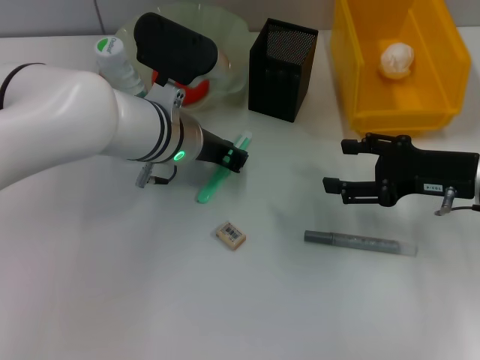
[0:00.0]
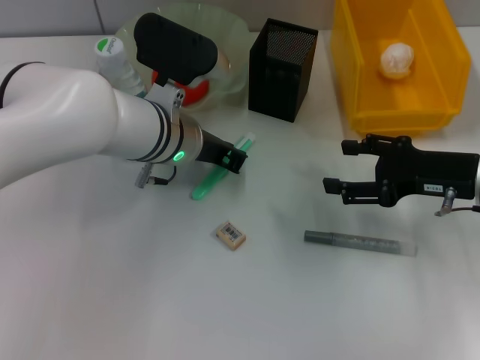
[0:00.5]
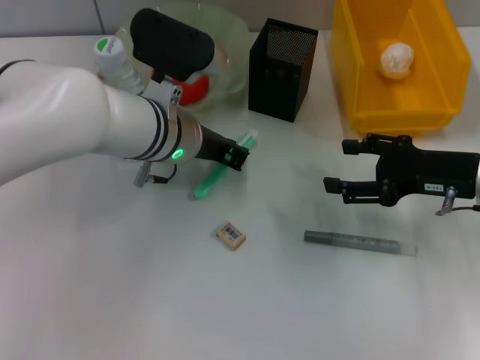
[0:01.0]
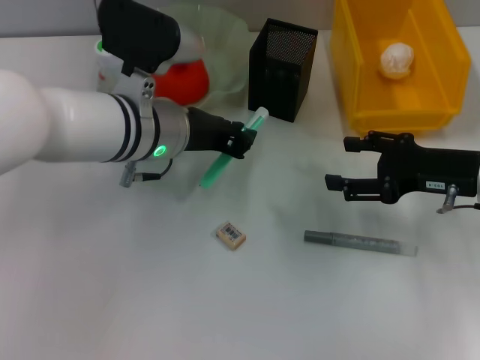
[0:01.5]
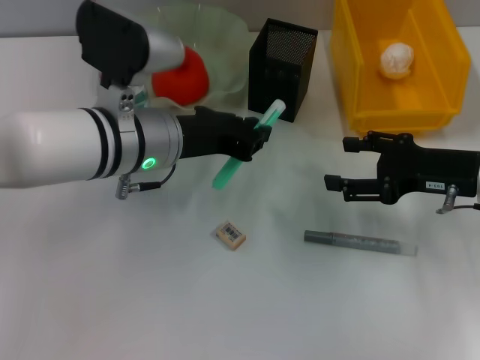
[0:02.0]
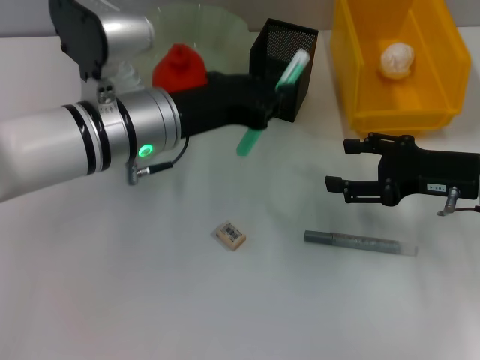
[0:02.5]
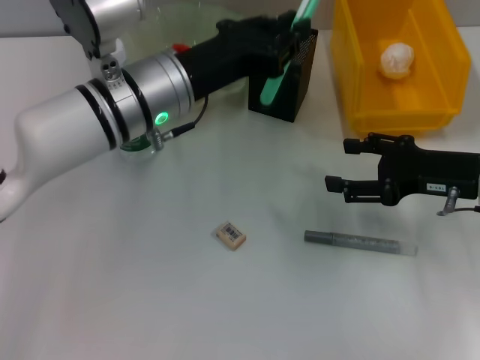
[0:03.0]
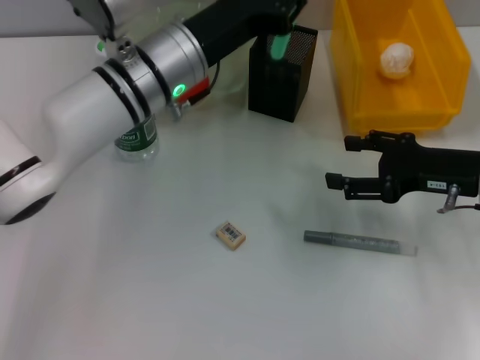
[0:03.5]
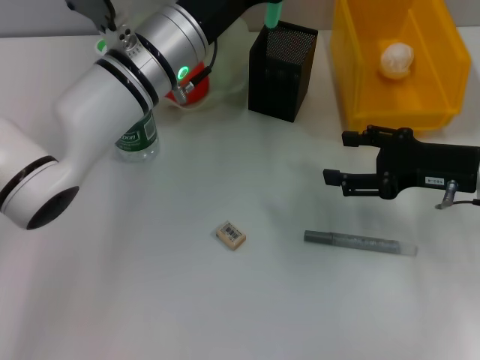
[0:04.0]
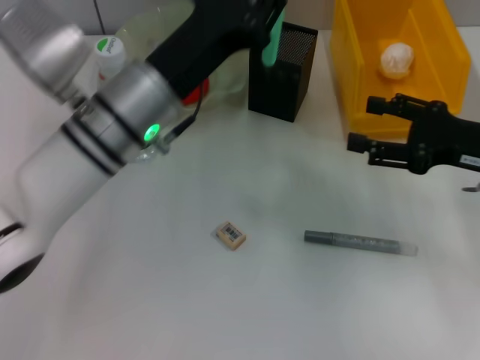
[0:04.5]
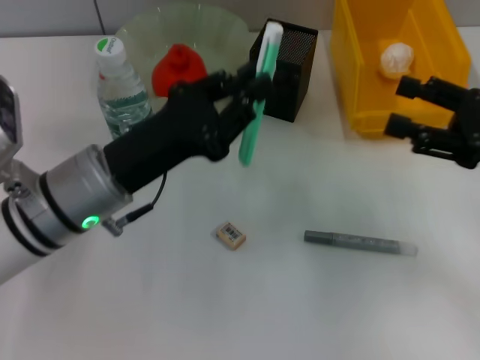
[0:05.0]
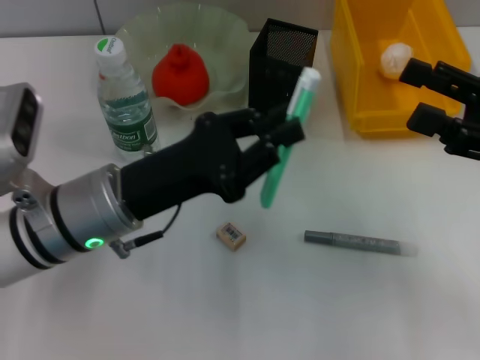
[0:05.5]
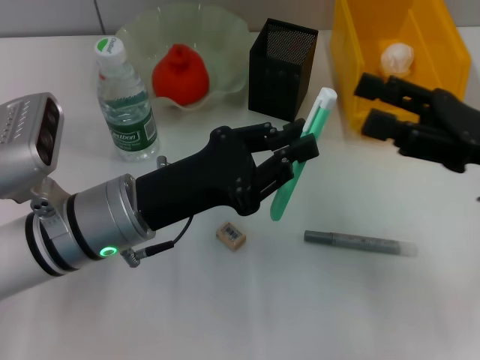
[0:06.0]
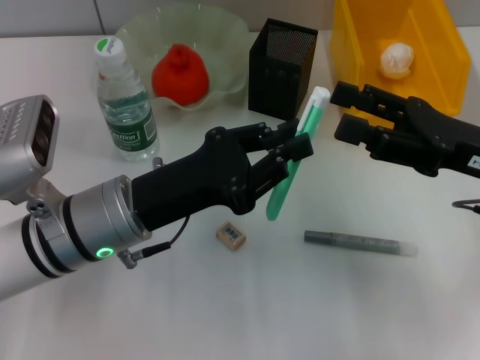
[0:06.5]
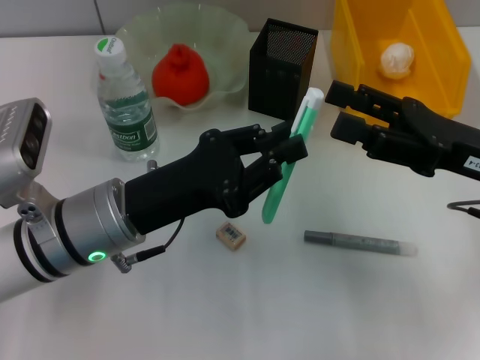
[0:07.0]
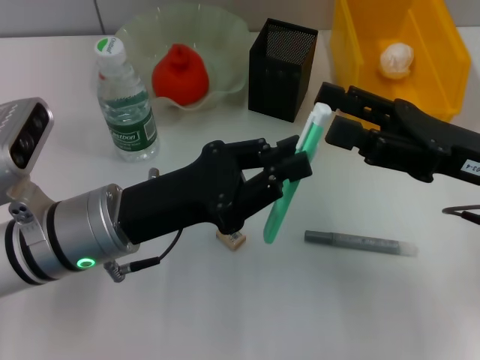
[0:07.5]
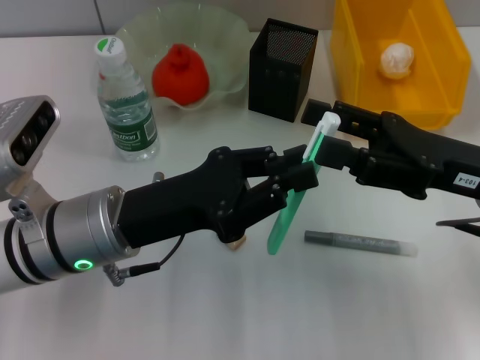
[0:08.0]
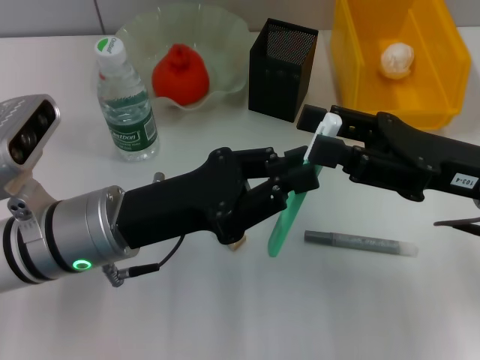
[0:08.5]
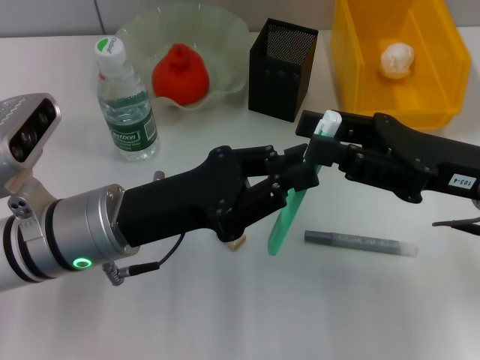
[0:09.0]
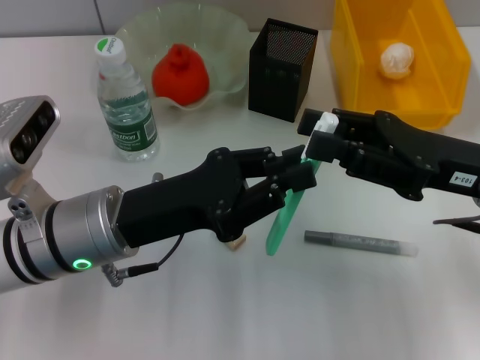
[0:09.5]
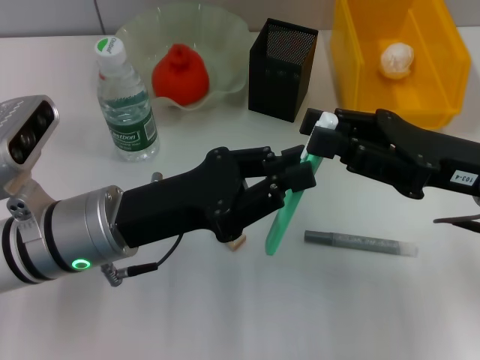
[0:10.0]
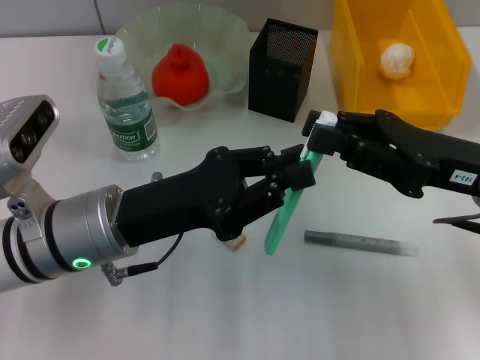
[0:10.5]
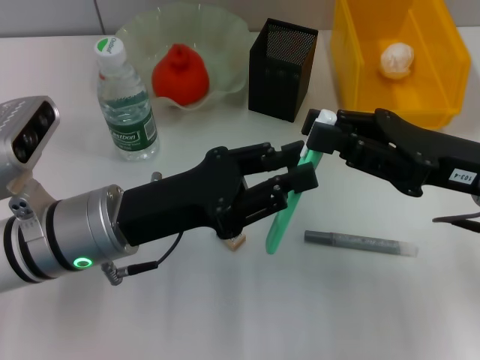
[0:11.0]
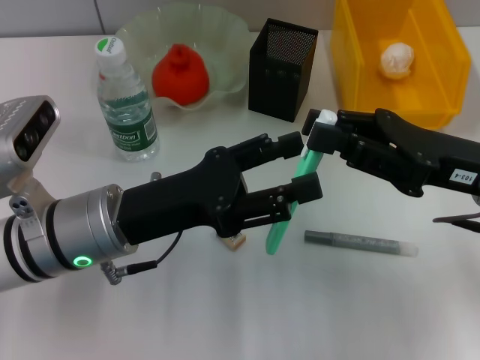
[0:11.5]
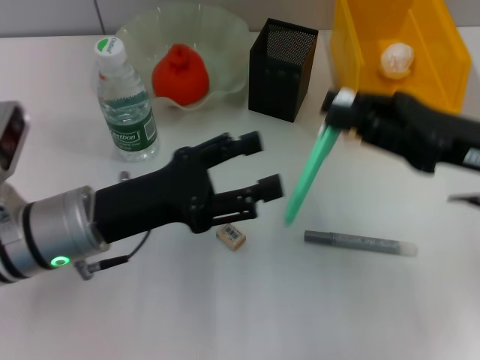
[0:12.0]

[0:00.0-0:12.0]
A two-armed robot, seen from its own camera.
Step, 0:01.0 to 0:11.0: Pass the blue utility knife from the left hand to the right hand.
0:00.0 to 0:02.0: The left gripper ends up roughly 5 cm from where it was.
0:02.0 to 0:04.0: The left gripper heads forward, covering approximately 5 cm.
0:04.0 to 0:06.0: The right gripper shifts by approximately 5 cm; the left gripper goes some 15 cm backward, downward and to the left.
0:08.0 to 0:10.0: The right gripper closes.
0:10.0 to 0:12.0: The left gripper opens.

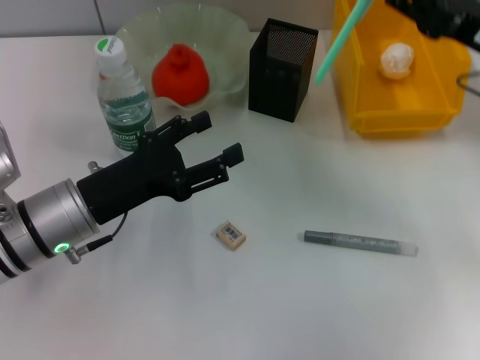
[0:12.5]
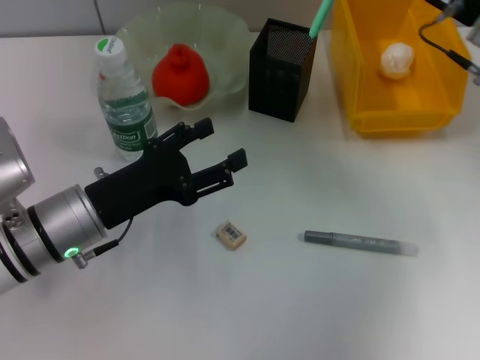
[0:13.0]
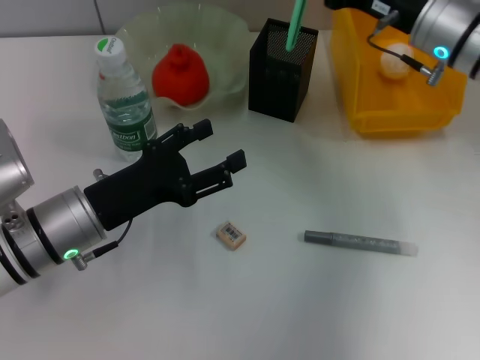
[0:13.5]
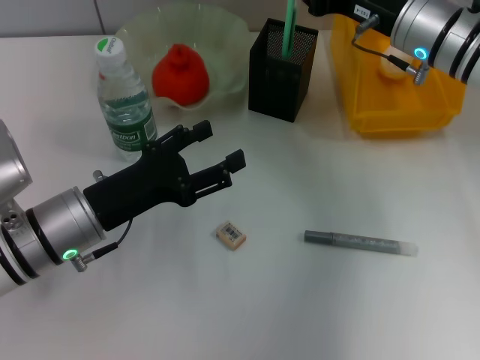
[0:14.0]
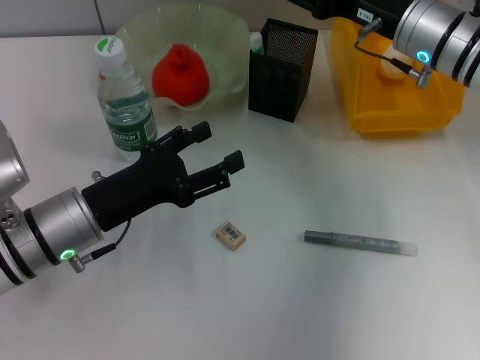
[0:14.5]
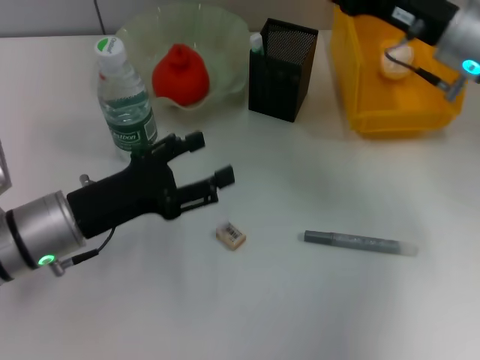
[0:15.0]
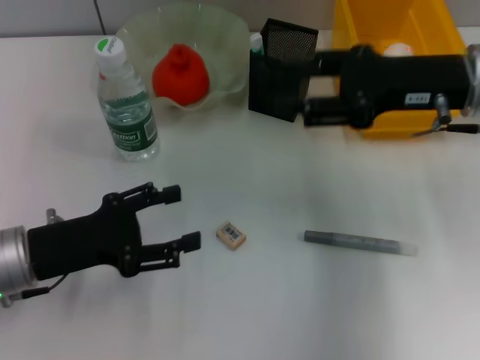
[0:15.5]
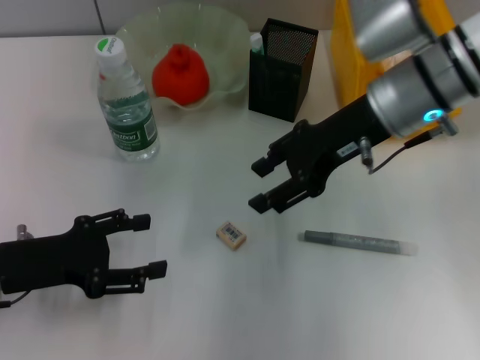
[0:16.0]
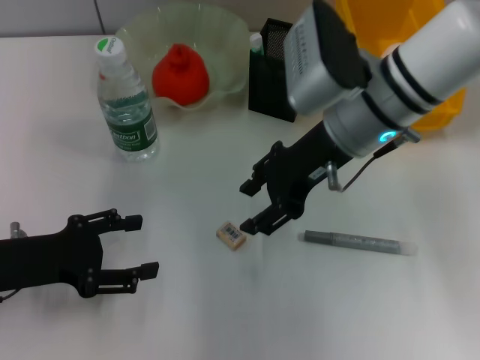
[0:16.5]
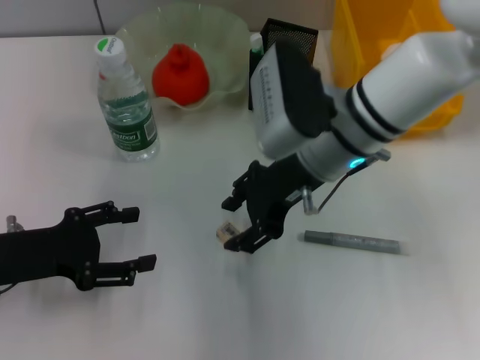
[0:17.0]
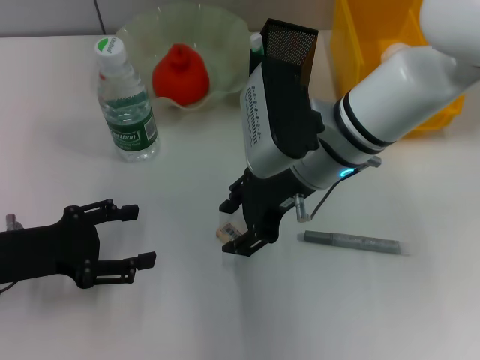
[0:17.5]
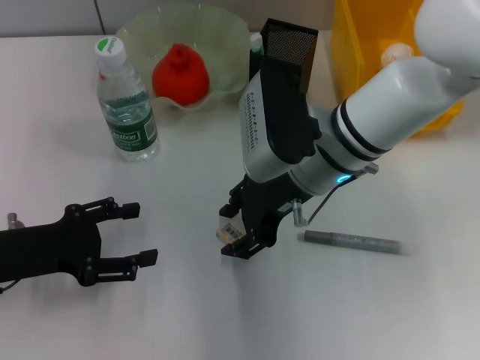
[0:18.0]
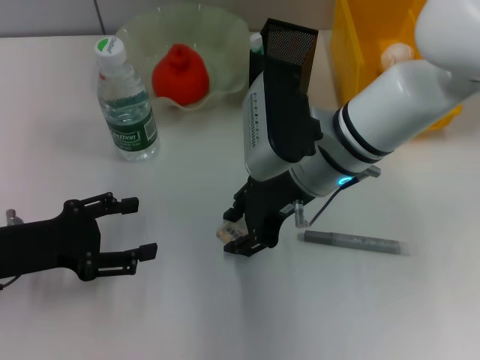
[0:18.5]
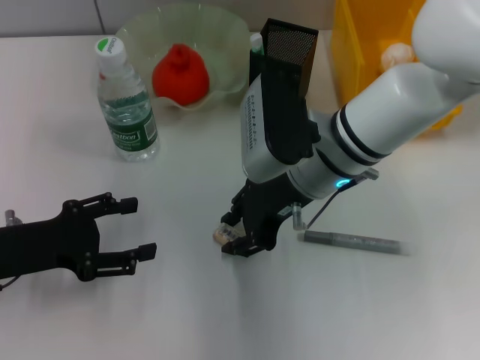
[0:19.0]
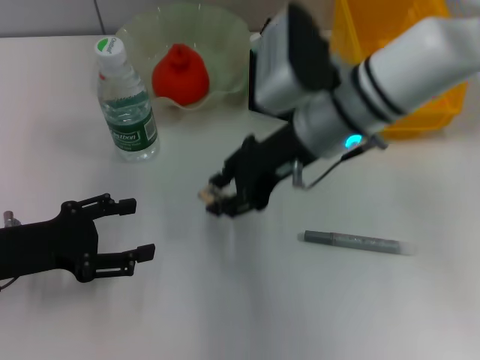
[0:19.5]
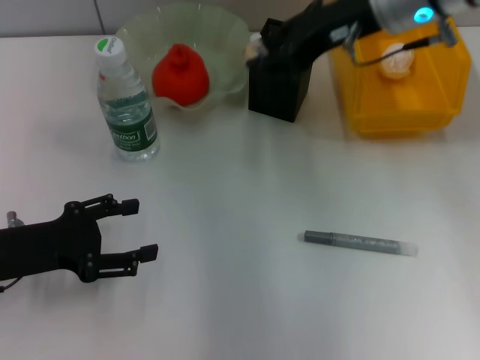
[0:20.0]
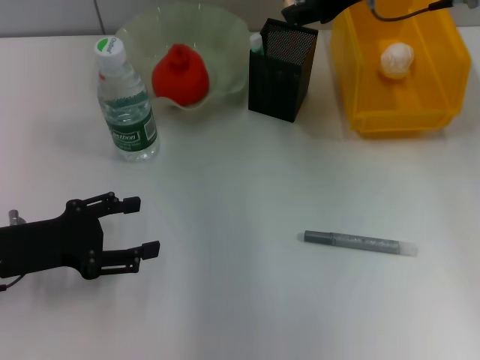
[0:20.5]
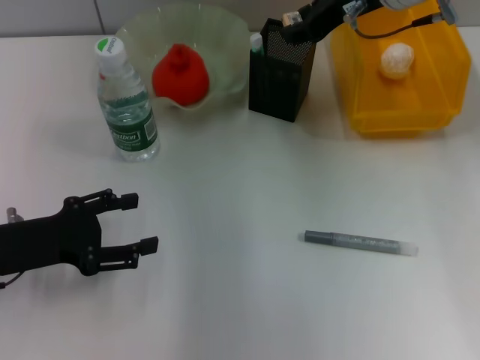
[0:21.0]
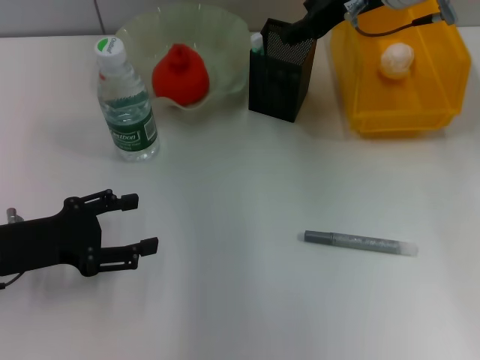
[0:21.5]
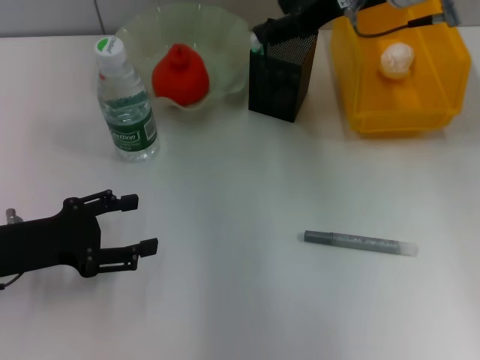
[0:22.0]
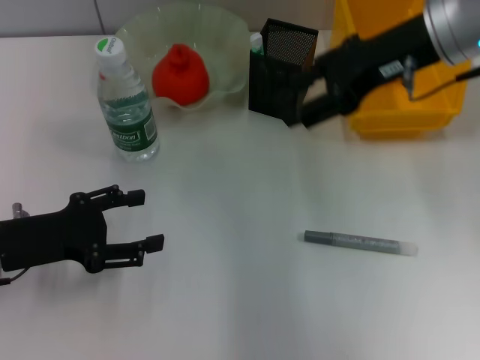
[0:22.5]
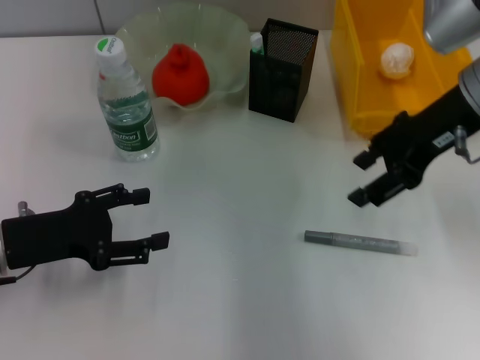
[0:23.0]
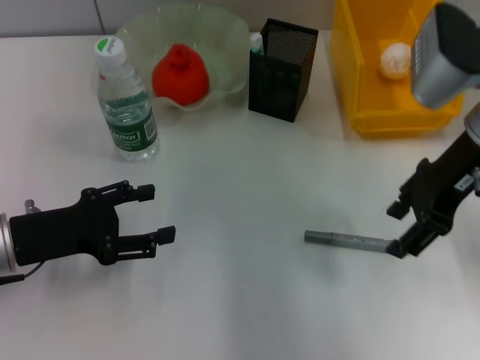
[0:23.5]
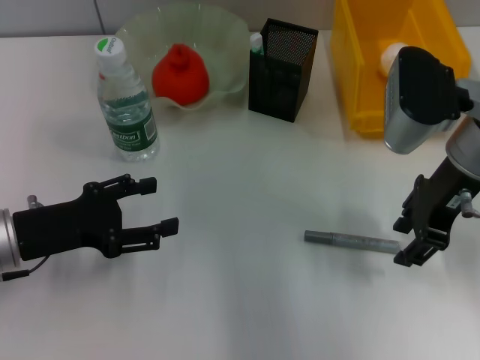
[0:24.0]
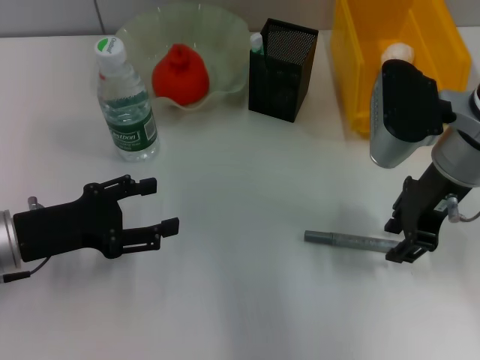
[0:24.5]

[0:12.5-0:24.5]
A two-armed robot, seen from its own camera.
Step, 0:12.5 to 0:14.0: Place the blue utility knife into the pen holder with the right hand.
Step, 0:14.5 to 0:19.0: Grab the eraser with the right hand.
Step, 0:19.5 to 0:21.5: Put the eraser into the pen holder with the right hand.
0:12.5 to 0:14.5: The right gripper moves to the left and forward, some 10 cm, and opens.
0:14.5 to 0:16.5: The right gripper moves to the left and backward, some 10 cm, while the left gripper goes roughly 10 cm to the left.
0:16.5 to 0:18.5: The right gripper shifts by about 5 cm.
0:18.5 to 0:20.5: The right gripper shifts approximately 20 cm upward, forward and to the right.
0:20.5 to 0:22.5: The right gripper shifts about 5 cm backward, and opens up.
0:22.5 to 0:24.5: The right gripper is displaced downward by some 10 cm, and closes.

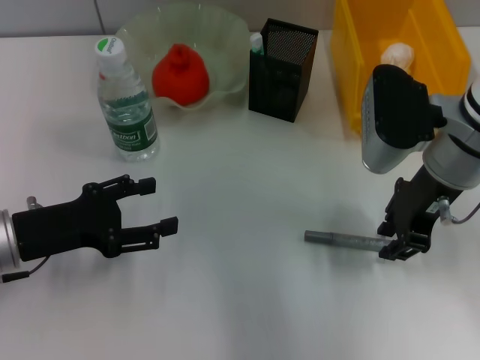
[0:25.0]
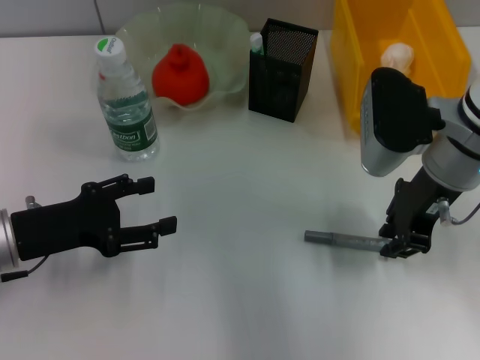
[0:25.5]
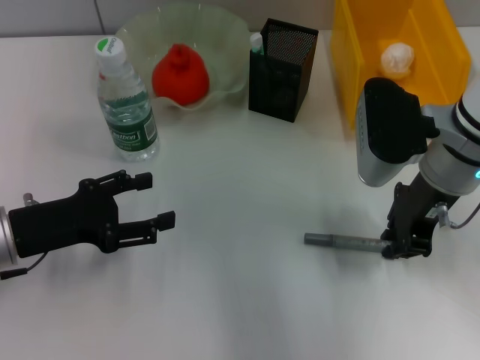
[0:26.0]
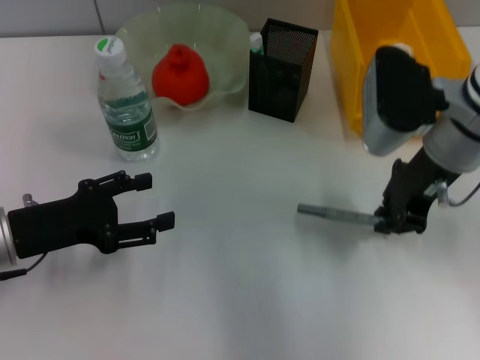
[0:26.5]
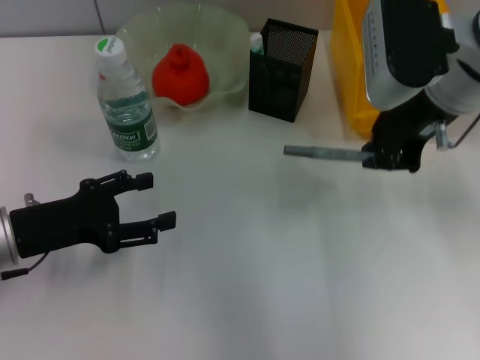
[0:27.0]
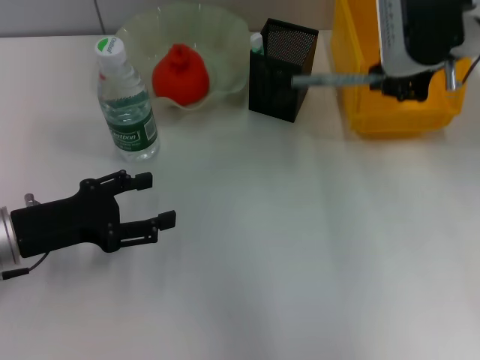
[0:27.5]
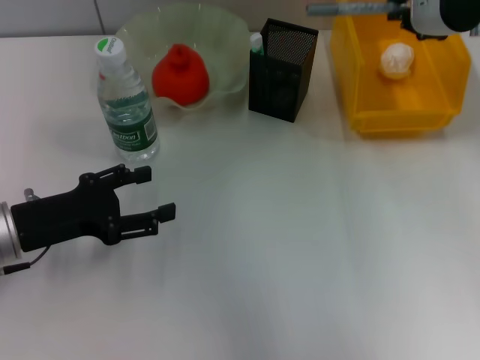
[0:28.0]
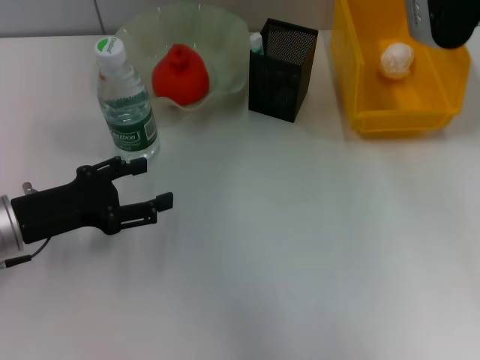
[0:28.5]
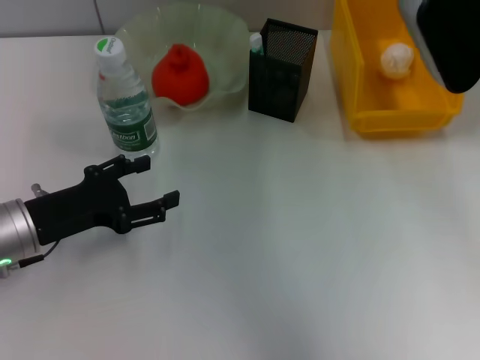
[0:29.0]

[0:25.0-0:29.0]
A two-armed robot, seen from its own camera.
0:25.0 to 0:27.0: The right gripper moves upward, roughly 5 cm.
0:27.0 to 0:29.0: The right gripper shifts by approximately 5 cm.
